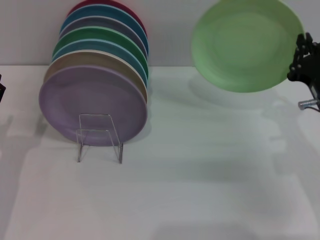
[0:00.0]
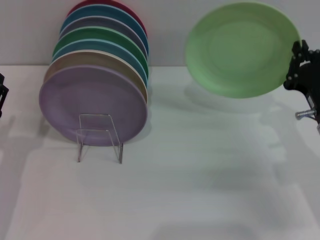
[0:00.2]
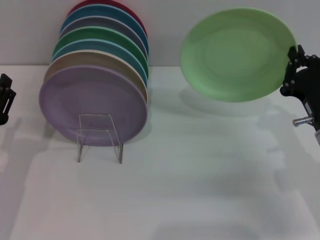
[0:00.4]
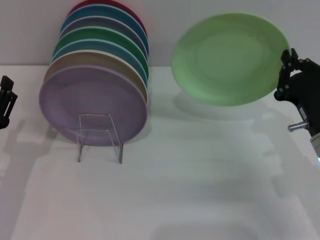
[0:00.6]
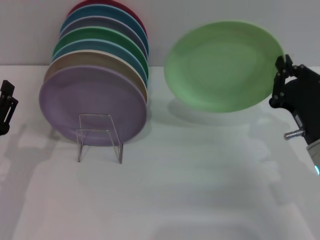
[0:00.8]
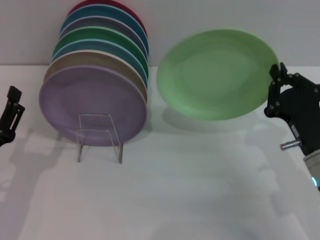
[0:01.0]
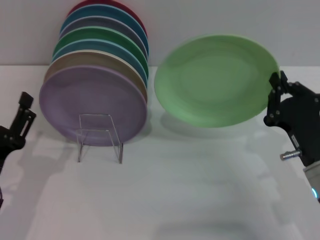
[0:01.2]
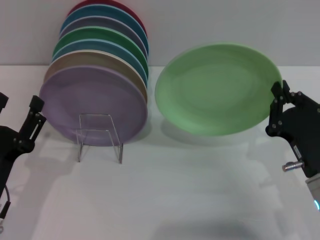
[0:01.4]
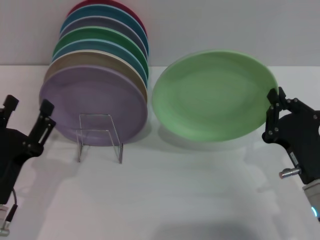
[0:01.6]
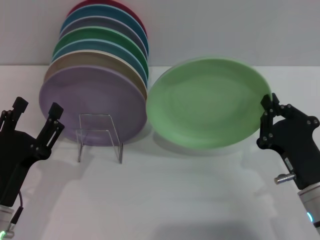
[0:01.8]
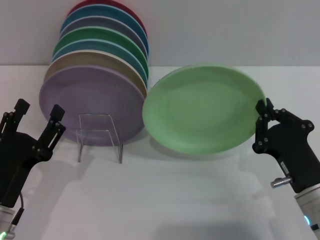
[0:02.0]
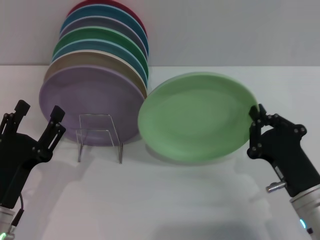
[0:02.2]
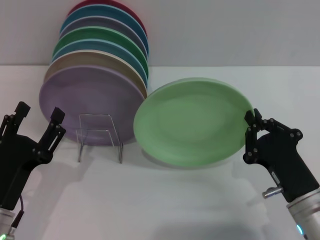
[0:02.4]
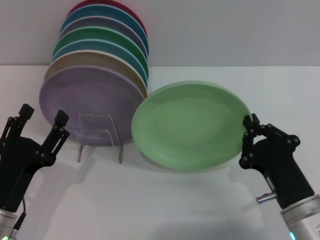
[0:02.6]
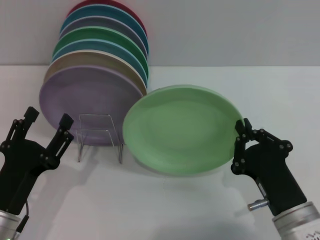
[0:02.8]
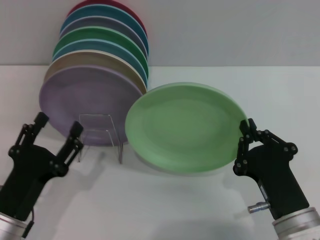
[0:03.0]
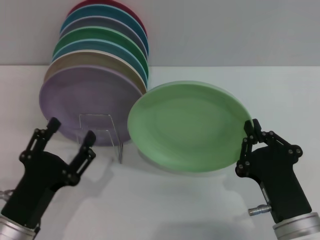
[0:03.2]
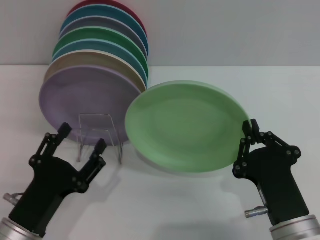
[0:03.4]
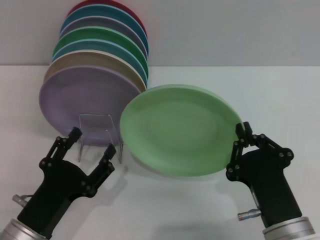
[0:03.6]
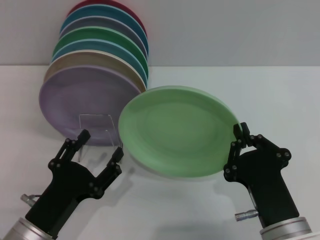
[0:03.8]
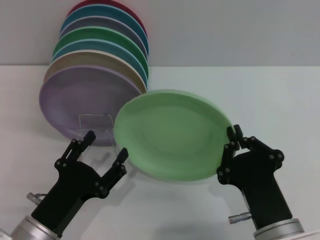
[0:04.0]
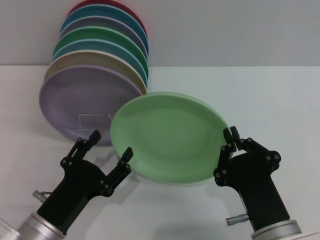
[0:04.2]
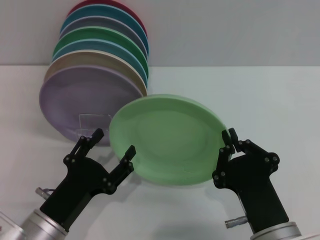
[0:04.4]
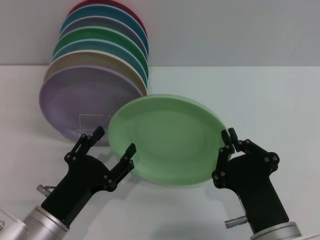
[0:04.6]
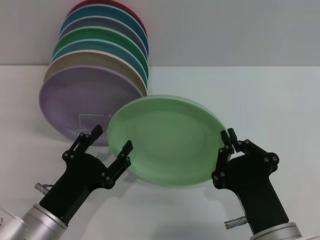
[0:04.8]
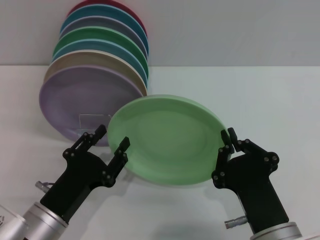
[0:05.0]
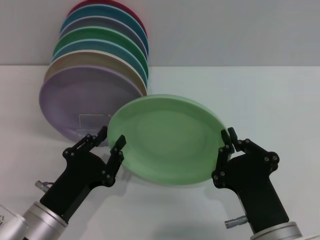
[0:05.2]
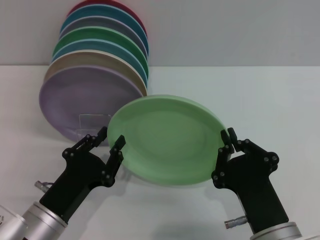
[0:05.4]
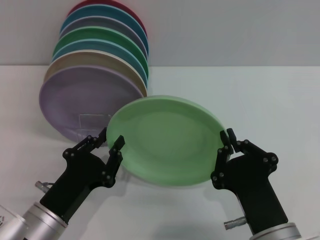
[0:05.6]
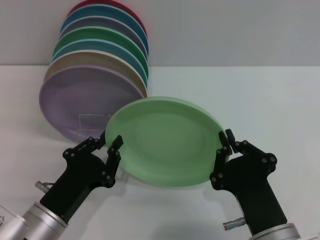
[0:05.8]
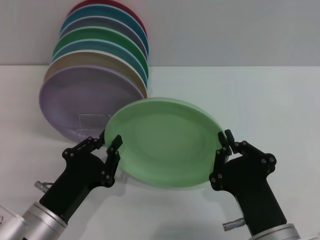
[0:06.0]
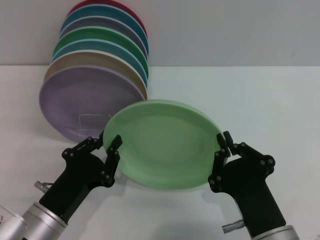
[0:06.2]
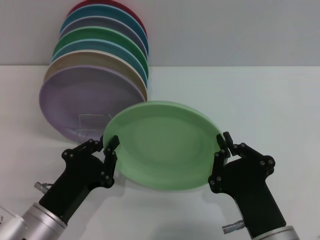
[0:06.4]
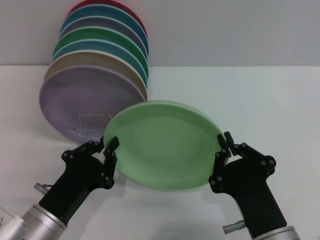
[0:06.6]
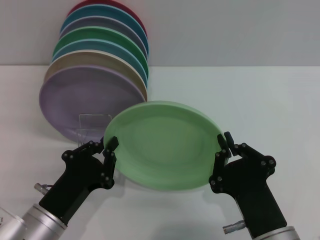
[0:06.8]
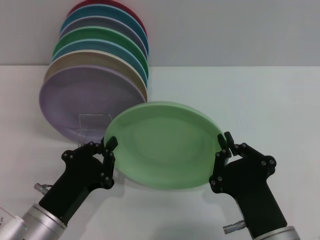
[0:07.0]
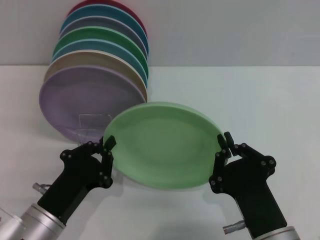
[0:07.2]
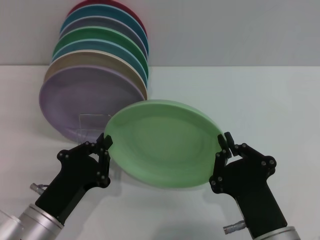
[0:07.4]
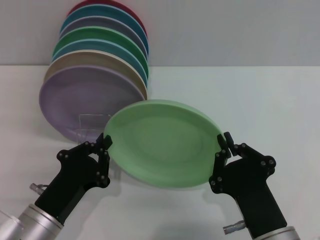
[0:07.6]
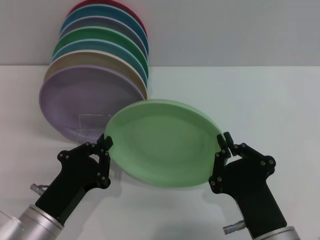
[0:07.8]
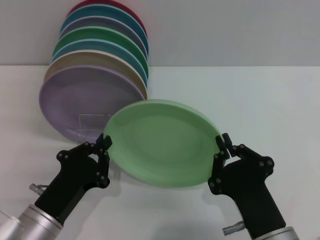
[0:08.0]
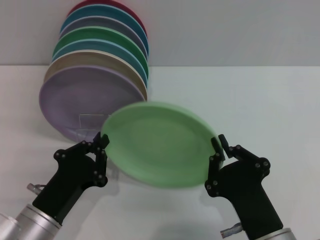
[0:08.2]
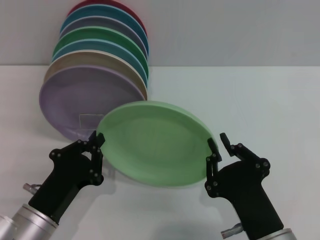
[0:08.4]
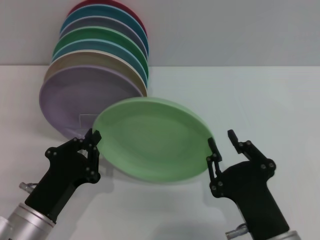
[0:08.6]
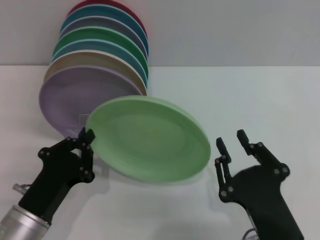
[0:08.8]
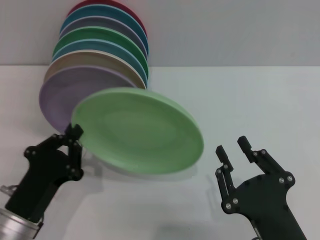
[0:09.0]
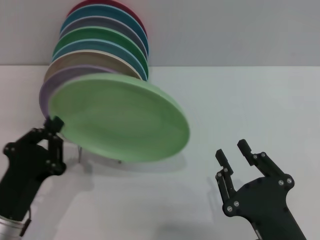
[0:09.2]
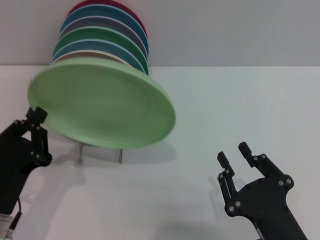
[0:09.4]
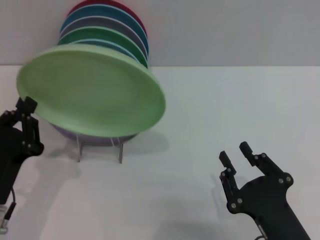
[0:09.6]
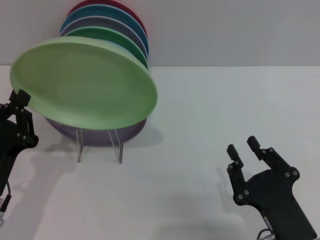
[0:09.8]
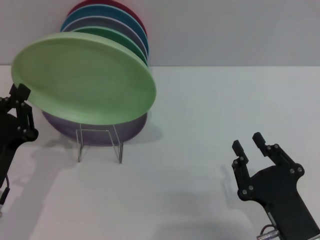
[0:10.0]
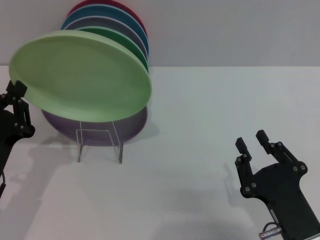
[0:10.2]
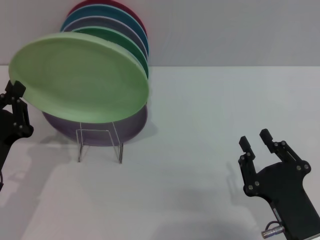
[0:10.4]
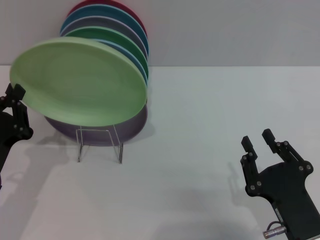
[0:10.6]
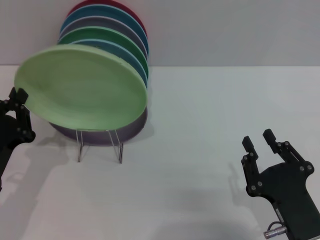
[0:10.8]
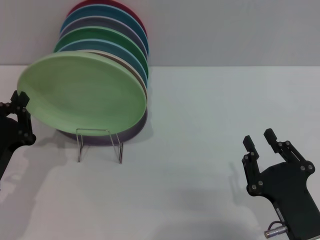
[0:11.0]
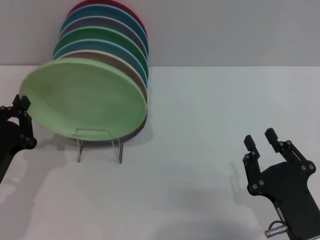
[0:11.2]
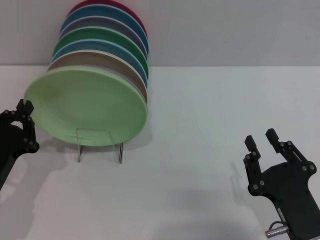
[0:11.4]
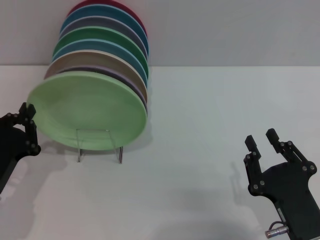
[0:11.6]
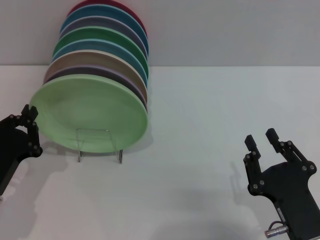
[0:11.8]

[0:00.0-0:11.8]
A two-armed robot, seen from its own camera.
Task of the whole recording: Grip the plate with one hand, pass it to the other, then set it on the shelf.
Step, 0:00.0 to 0:08.8: Pass the plate from the right gripper to the left gripper.
0:00.0 to 0:01.4: The left gripper changes place by approximately 5 cm. The right gripper moves backward, roughly 10 cm.
0:01.4 to 0:03.0: The right gripper is displaced to the left and backward by approximately 10 cm.
0:03.0 to 0:04.4: The right gripper changes place by approximately 5 cm.
0:04.4 to 0:06.0: The left gripper closes up.
0:06.0 to 0:07.4: The two grippers keep their place.
0:07.4 to 0:08.8: The right gripper opens.
0:08.8 to 0:10.4: The right gripper ends up some 5 cm from where it was. The left gripper shifts roughly 5 cm to the left.
0:10.4 to 0:11.8: The grippers move only a little.

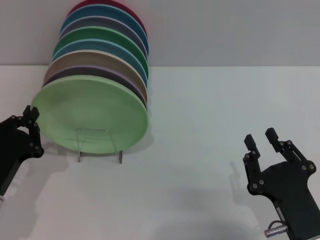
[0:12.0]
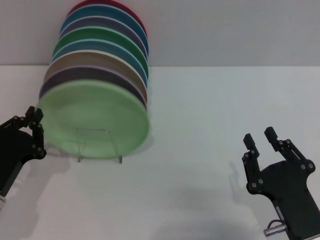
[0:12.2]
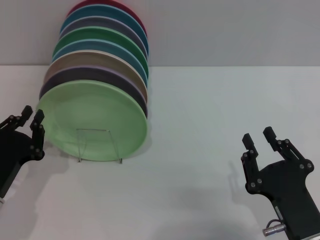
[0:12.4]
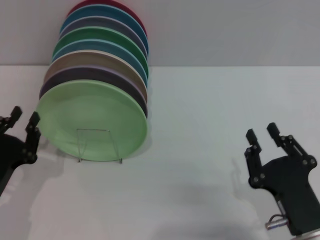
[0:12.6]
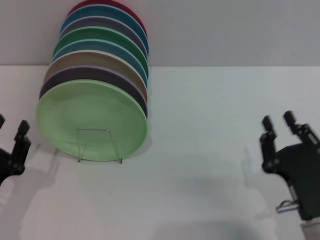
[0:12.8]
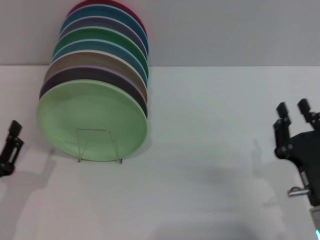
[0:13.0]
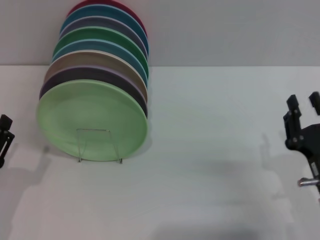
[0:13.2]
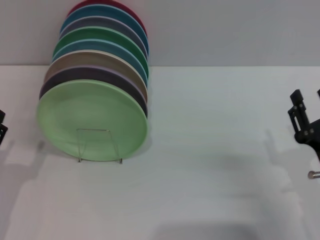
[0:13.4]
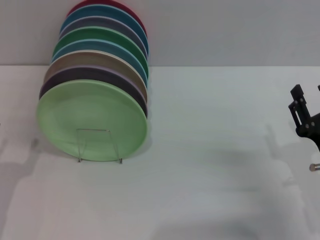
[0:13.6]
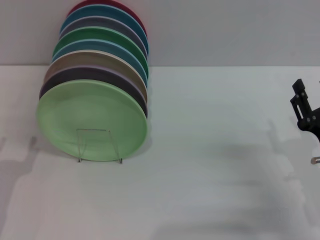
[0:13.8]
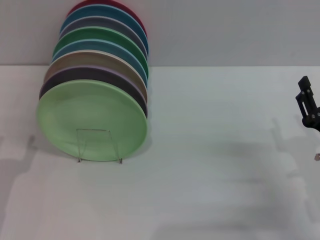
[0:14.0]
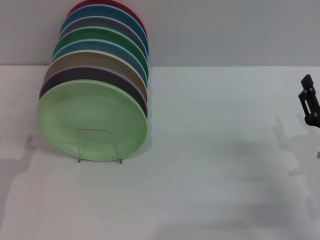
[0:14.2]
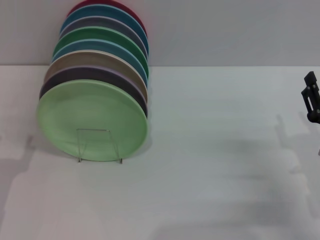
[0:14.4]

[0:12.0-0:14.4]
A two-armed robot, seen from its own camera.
Task of the whole recording: Grip the plate with one hand, pass it to the other, then set it on the shelf.
0:12.0 to 0:13.2: The left gripper opens its fingers. Meanwhile the right gripper is displaced forward by roughly 5 cm.
0:13.2 to 0:14.4: The right gripper moves about 5 cm, and opens.
